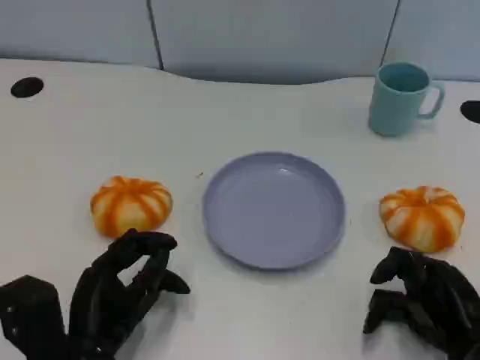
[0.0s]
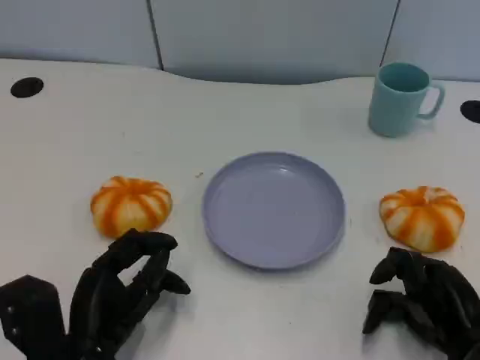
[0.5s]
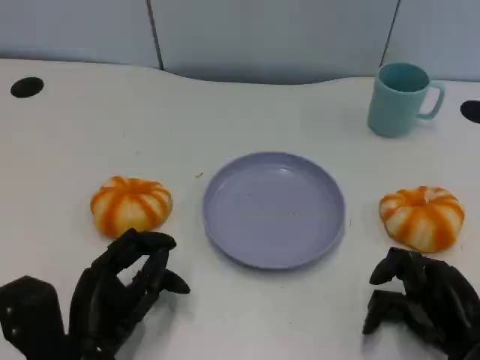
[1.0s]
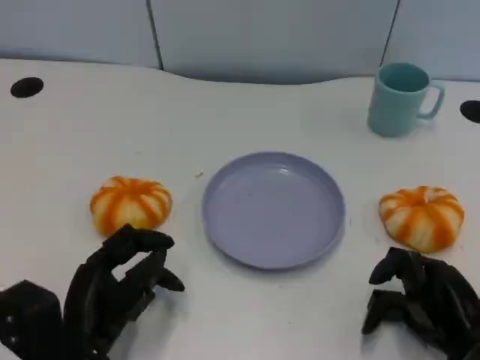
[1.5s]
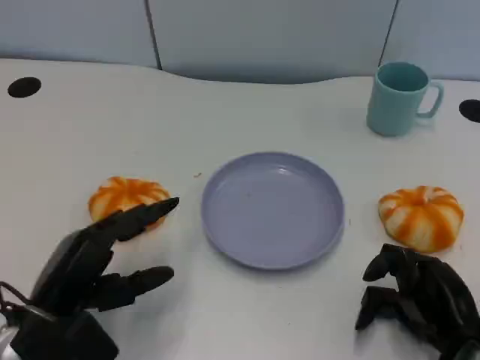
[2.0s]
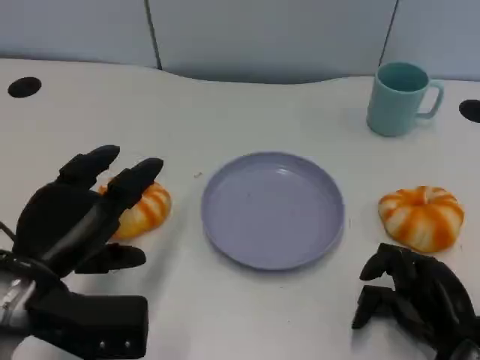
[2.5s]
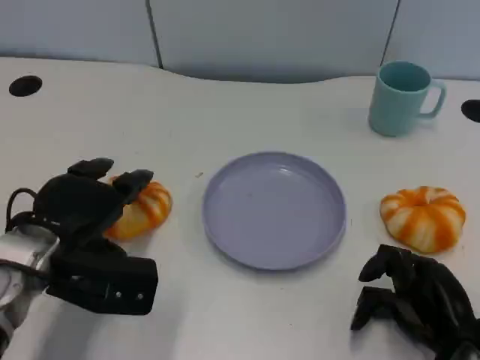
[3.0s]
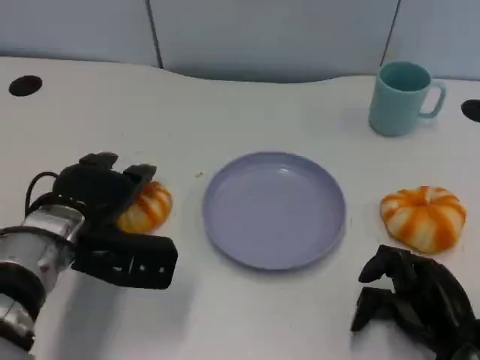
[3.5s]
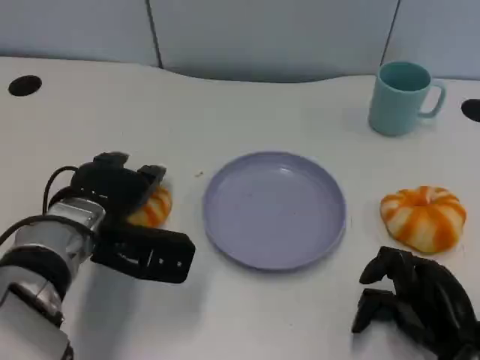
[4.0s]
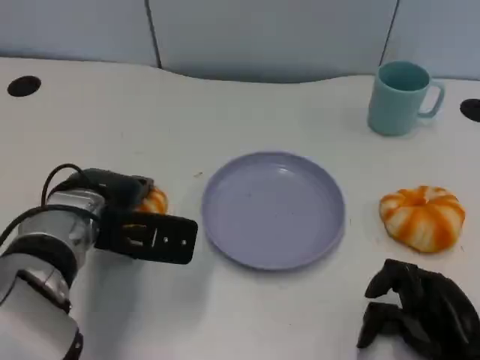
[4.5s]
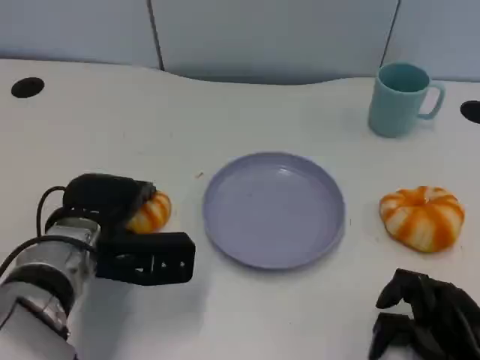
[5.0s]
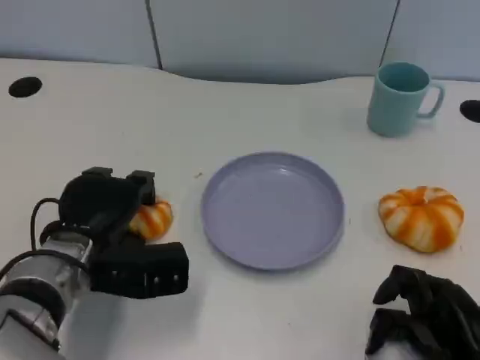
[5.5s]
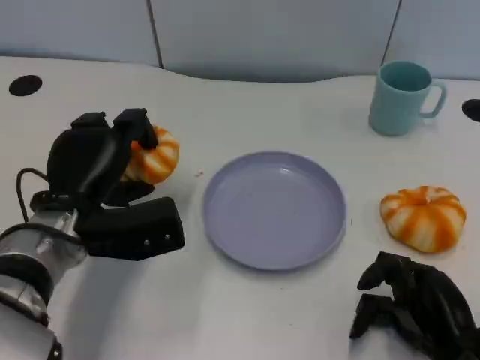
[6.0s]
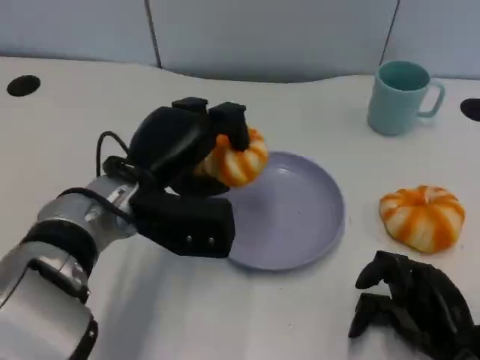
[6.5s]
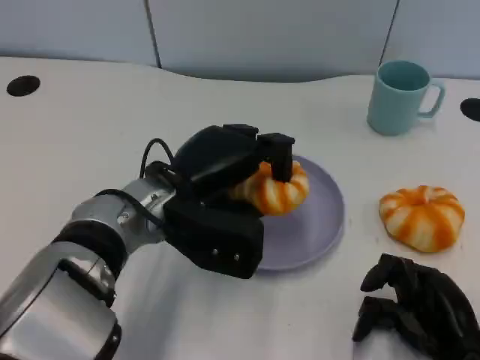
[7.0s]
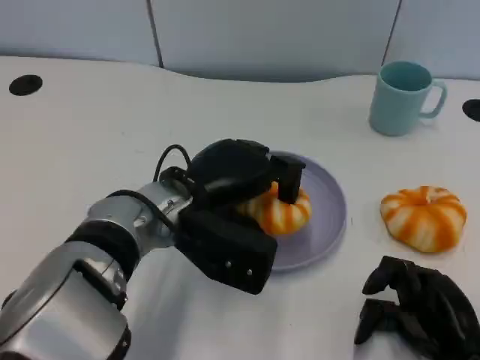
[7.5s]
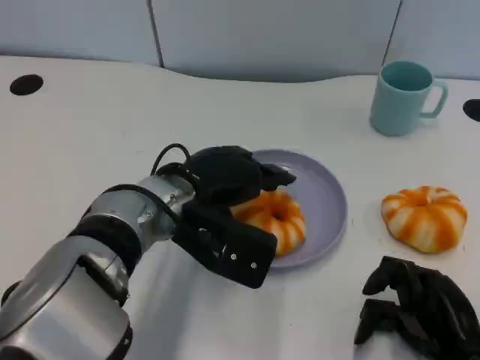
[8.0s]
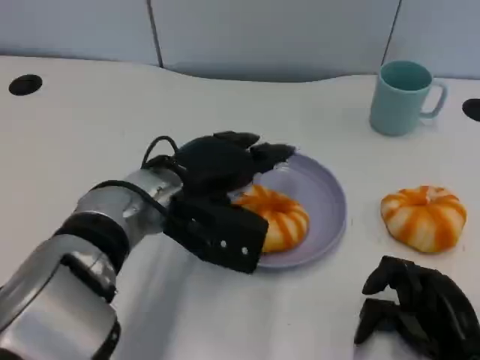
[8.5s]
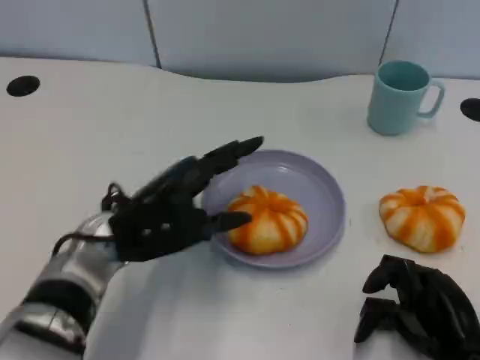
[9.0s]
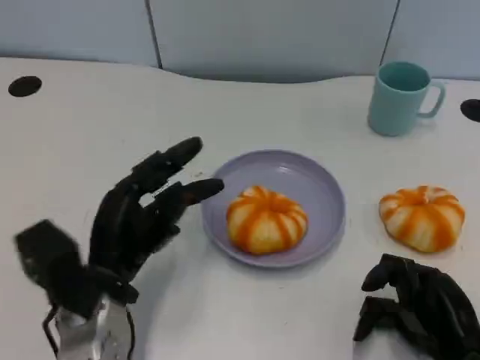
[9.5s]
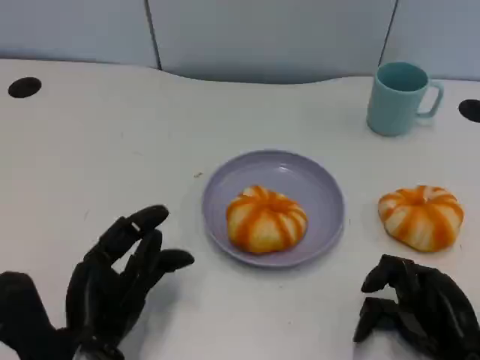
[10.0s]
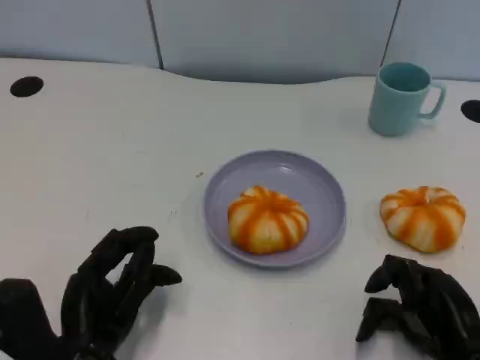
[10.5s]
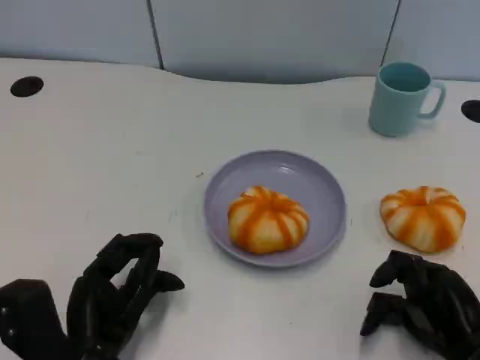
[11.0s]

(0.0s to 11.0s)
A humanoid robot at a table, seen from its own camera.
Task of the whole recording: Grasp the bread from the table and place it into the plate.
0.0s - 2.0s: The left hand moves some 5 cm.
2.0s - 3.5s: The left hand goes roughly 10 cm forward.
5.5s - 7.5s: The left hand goes approximately 10 cm to the right and upward.
7.5s - 9.0s: The left hand moves to the left, some 5 cm.
9.0s - 11.0s: The left hand heads backward and downward, covering about 10 cm.

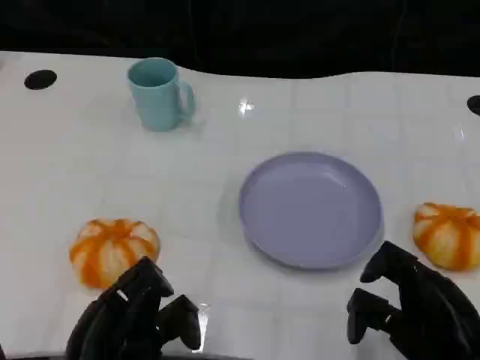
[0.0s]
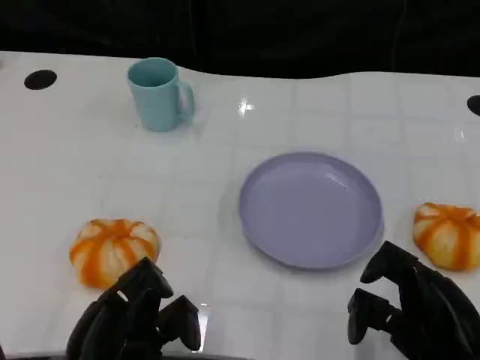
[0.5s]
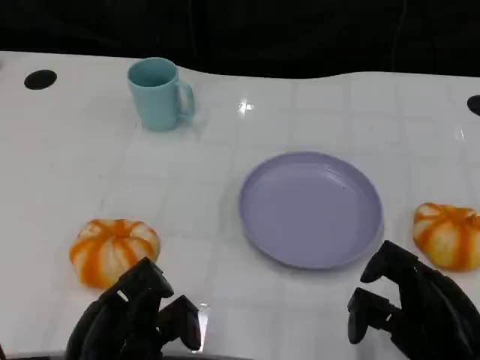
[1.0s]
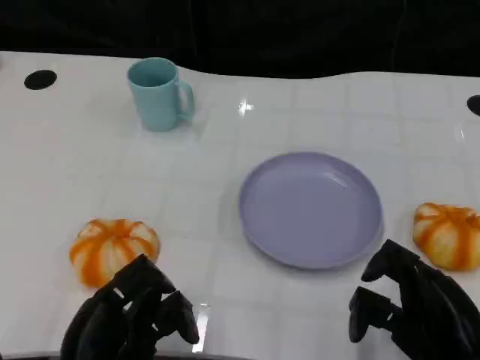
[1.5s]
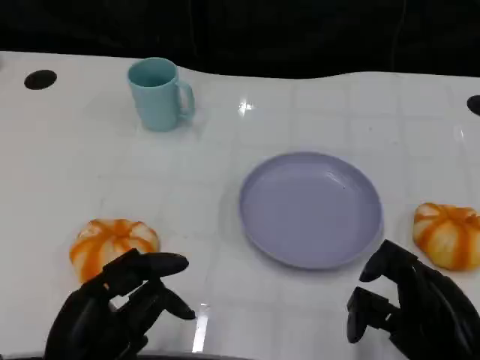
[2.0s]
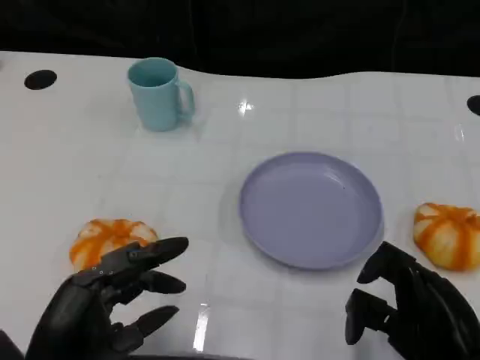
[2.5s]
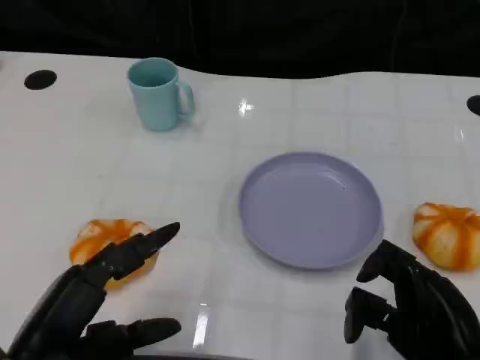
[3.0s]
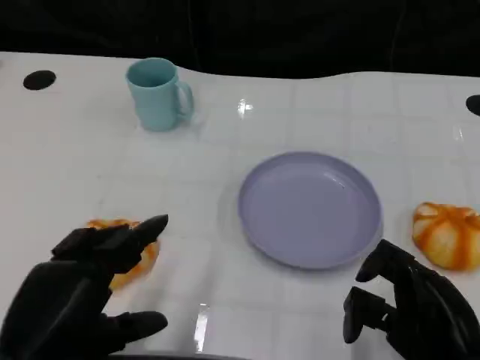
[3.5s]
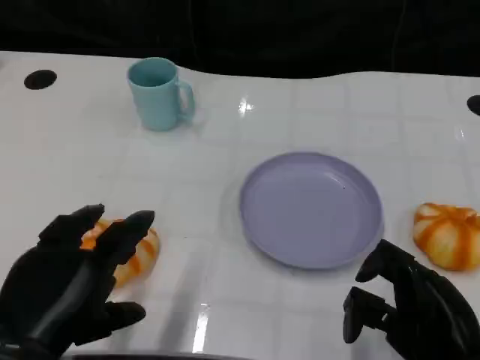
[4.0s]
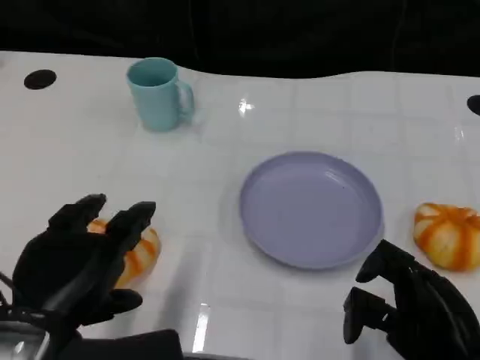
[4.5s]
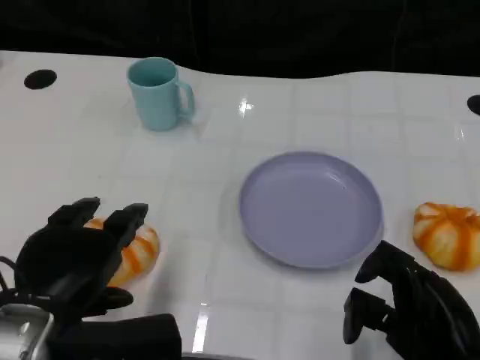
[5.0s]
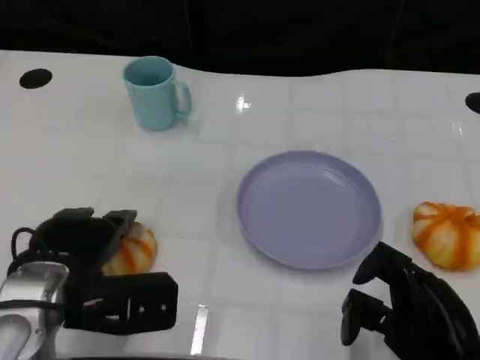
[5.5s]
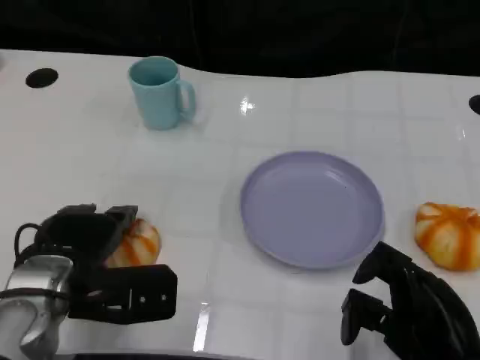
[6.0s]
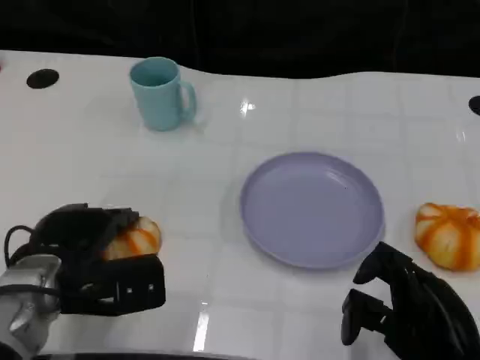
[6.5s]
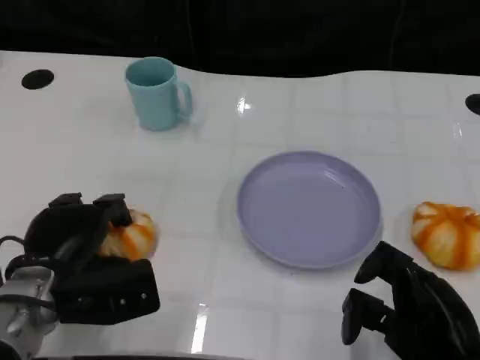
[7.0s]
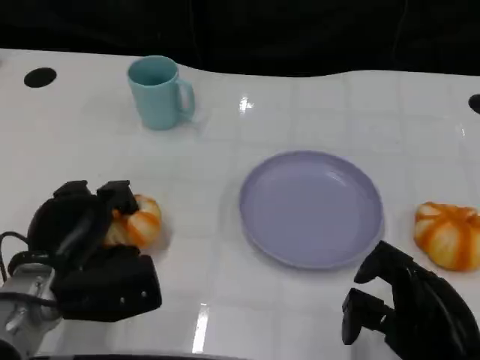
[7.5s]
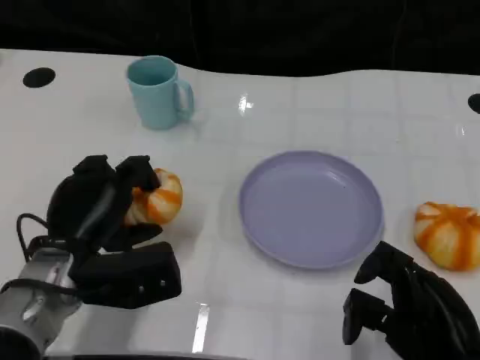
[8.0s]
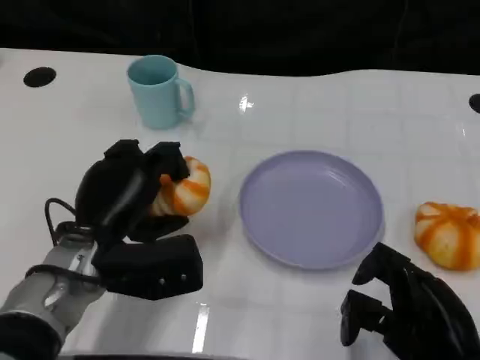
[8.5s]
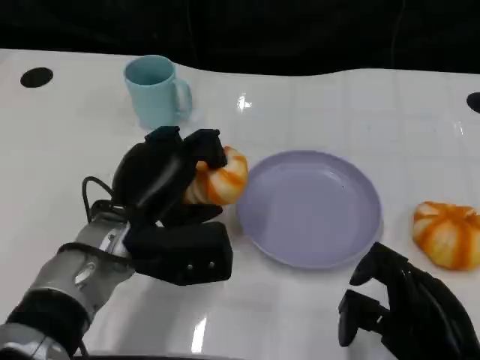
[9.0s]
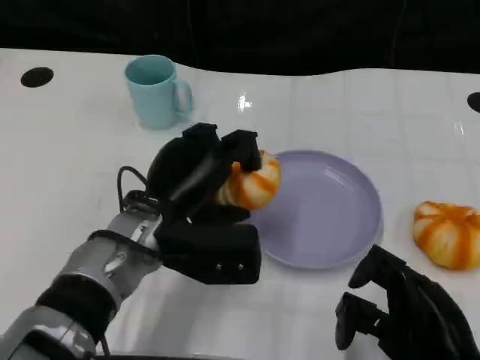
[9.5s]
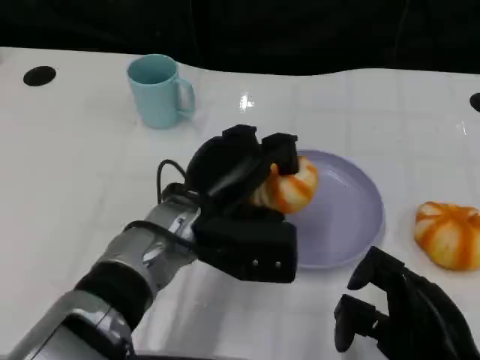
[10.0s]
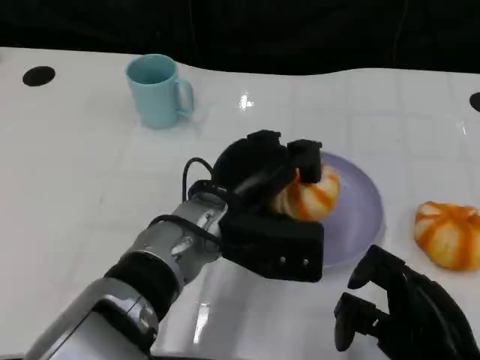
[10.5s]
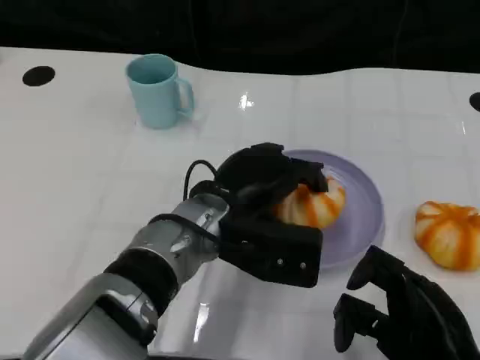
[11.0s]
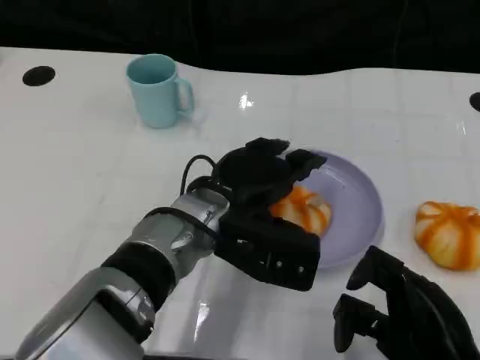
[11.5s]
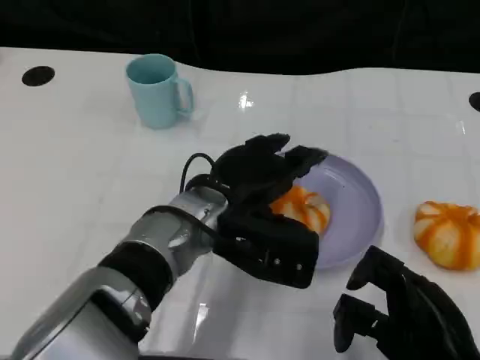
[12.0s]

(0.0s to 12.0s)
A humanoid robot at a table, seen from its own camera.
Task of the whole recording: Grasp the bread from the table and place it into the plate.
2.0s - 4.0s: The left hand shifts some 10 cm upward.
4.0s - 6.0s: The left hand is displaced forward and downward by approximately 10 cm.
8.0s - 10.0s: The left hand shifts about 10 cm to the right.
10.0s - 12.0s: The hands make only small movements.

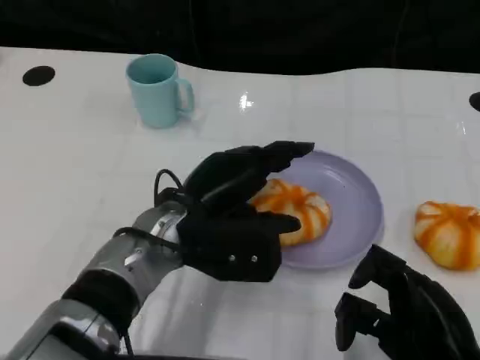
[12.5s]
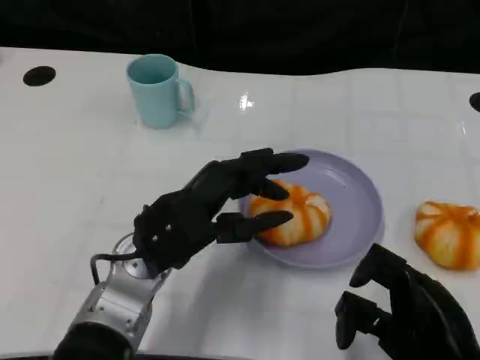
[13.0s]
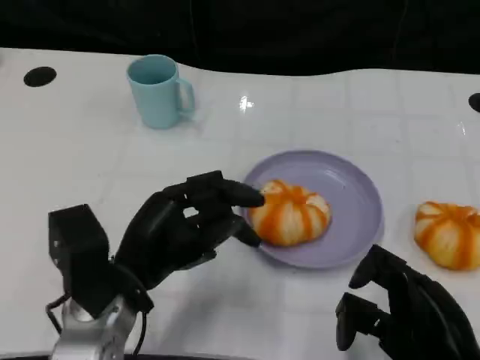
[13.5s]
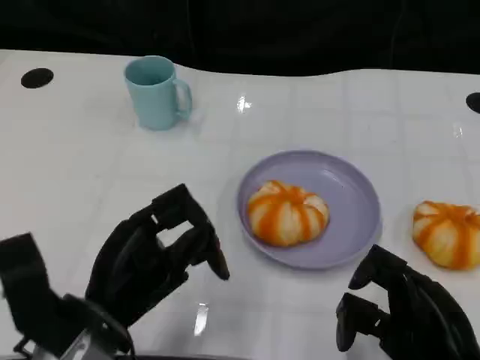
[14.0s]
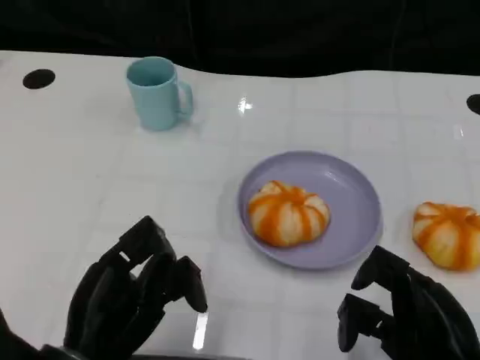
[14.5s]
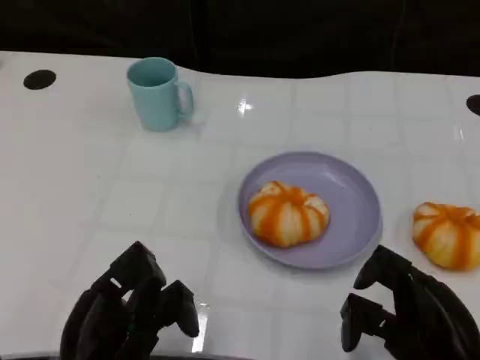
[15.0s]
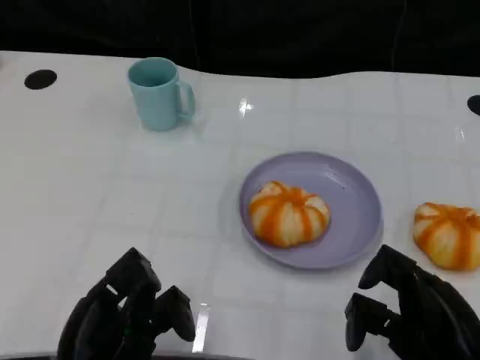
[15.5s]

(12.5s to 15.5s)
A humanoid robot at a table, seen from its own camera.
Task of the whole recording: Grasp the bread from the table and place it into the plate.
12.5s - 14.0s: The left hand goes approximately 15 cm backward and to the left.
14.0s - 15.5s: The left hand heads backward, covering about 5 cm.
